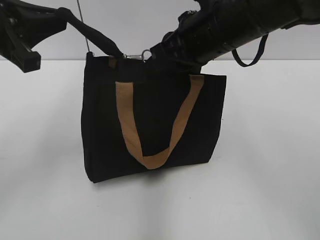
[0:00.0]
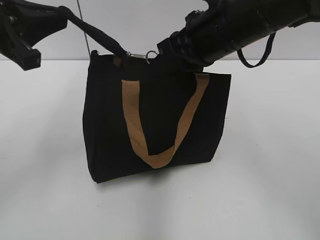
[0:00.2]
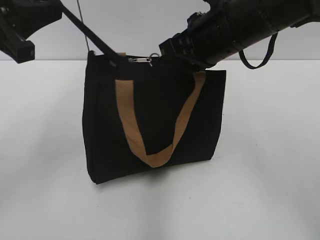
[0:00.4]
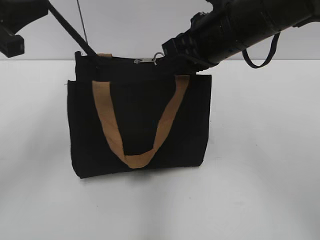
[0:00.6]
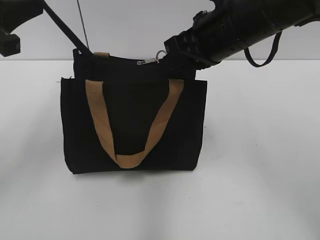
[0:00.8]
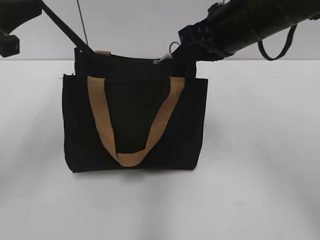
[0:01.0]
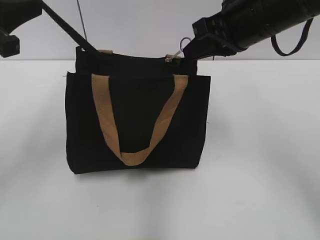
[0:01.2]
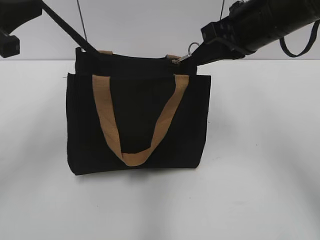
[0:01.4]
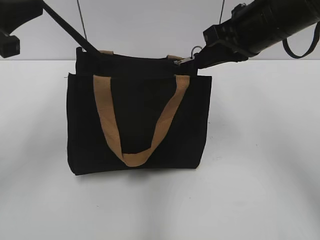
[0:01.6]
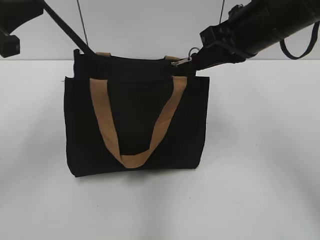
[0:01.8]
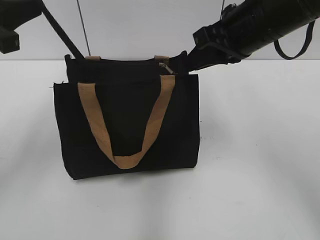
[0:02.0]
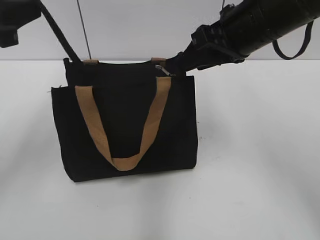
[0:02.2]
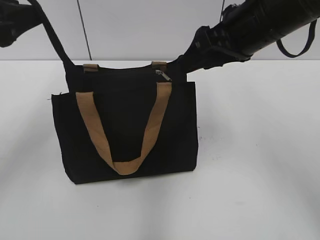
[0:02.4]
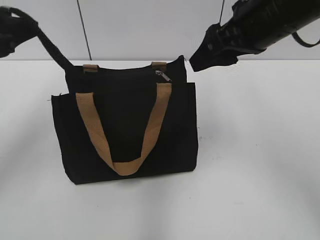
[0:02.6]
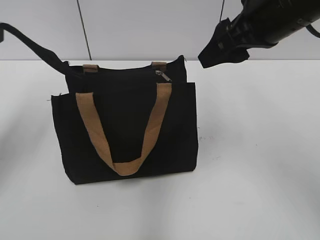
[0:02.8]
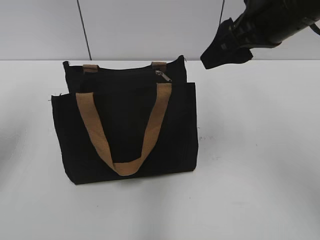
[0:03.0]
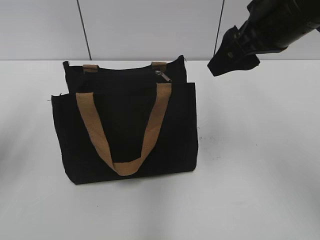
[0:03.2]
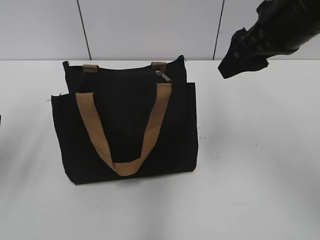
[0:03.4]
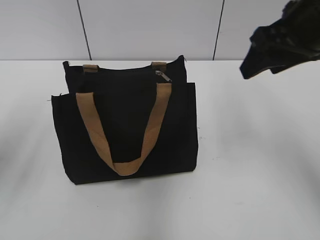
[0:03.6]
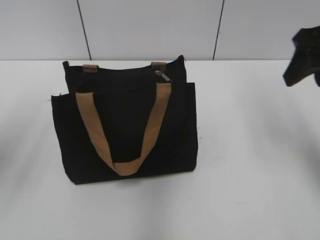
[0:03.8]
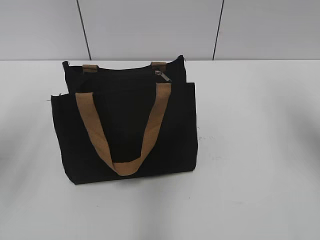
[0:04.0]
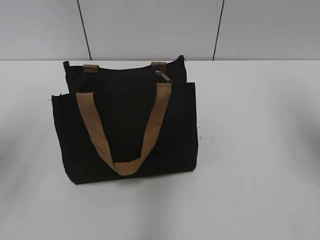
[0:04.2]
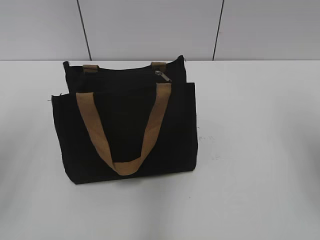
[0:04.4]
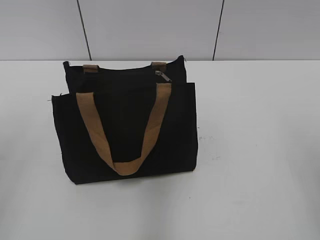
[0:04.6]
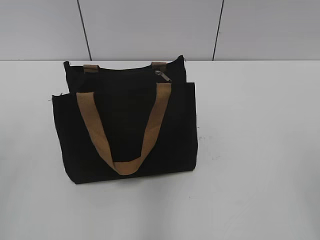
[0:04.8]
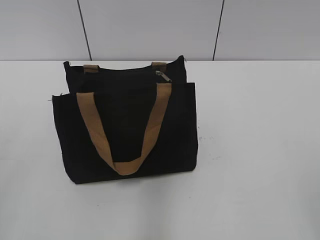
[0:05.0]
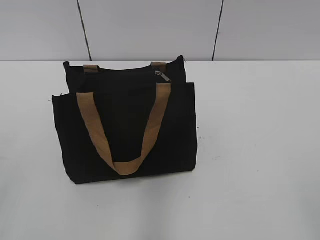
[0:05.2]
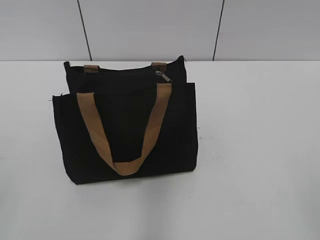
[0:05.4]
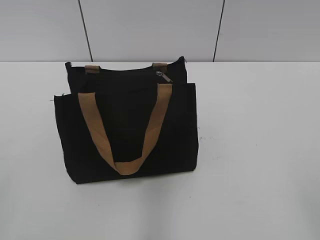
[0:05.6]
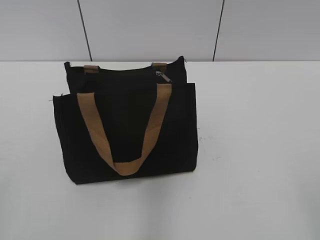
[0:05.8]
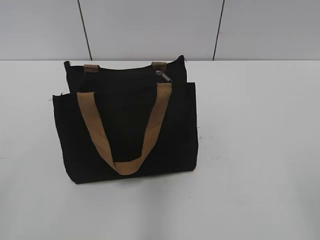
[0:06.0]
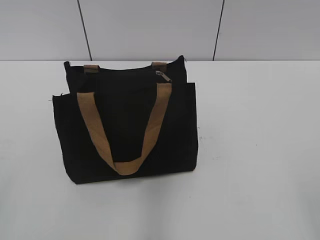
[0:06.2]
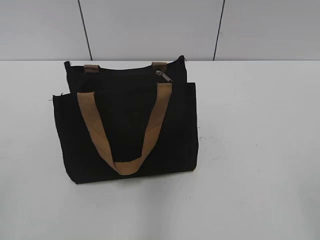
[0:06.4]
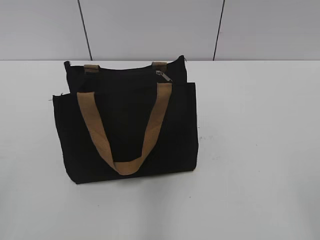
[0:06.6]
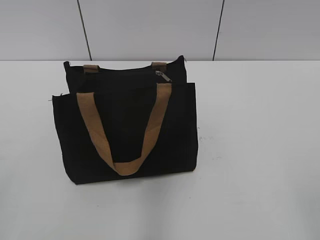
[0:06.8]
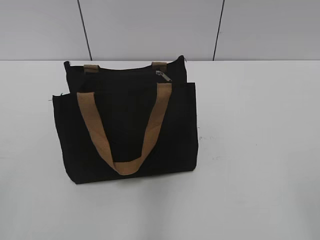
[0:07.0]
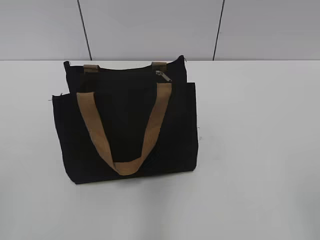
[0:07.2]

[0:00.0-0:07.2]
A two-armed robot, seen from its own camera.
Step, 0:00.0 to 0:02.0: Zip up the bag with your right hand.
Step, 0:02.2 to 0:02.8: Grab the zipper with your left hand.
0:00.0 to 0:01.4: The right gripper goes about 5 cm to the right.
0:01.4 to 0:02.8: The left gripper opens up. The right gripper opens up.
0:02.8 to 0:04.4: The left gripper travels backward by some 5 cm. The right gripper travels to the right and backward by some 15 cm.
0:04.4 to 0:05.8: Both grippers travel together backward, approximately 20 cm.
0:05.8 to 0:07.2: Both grippers stay put.
